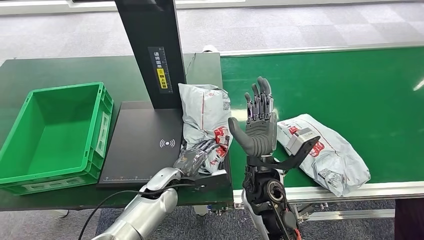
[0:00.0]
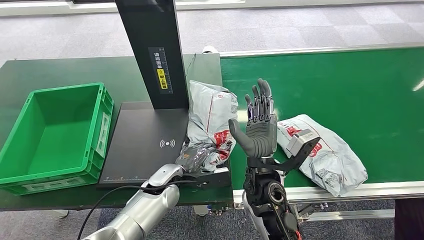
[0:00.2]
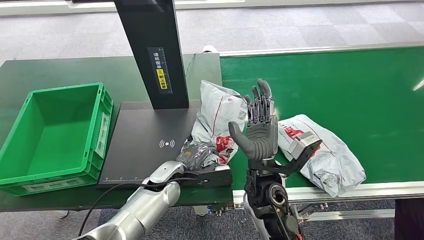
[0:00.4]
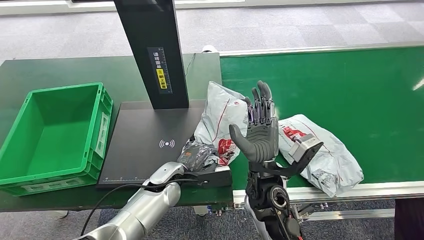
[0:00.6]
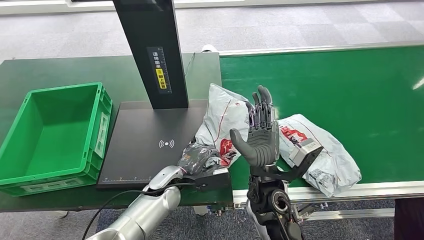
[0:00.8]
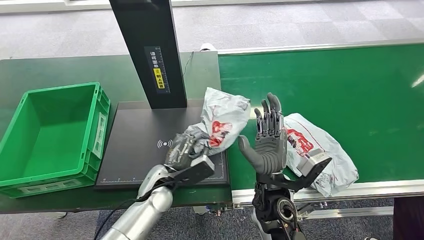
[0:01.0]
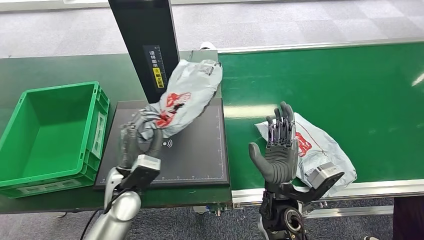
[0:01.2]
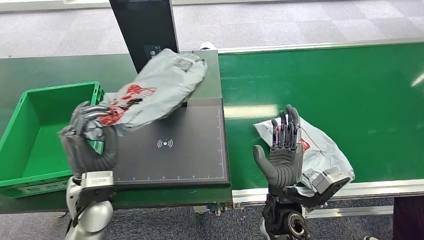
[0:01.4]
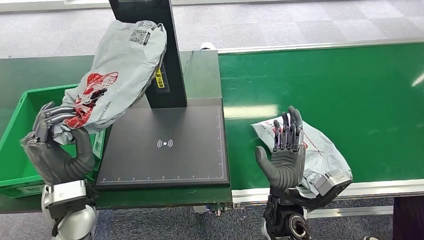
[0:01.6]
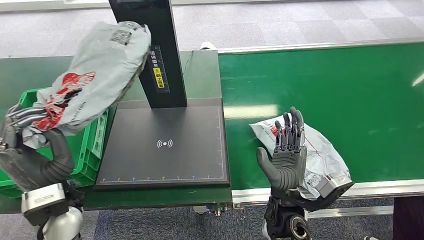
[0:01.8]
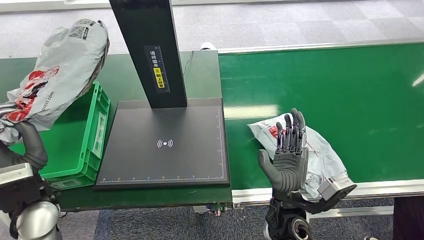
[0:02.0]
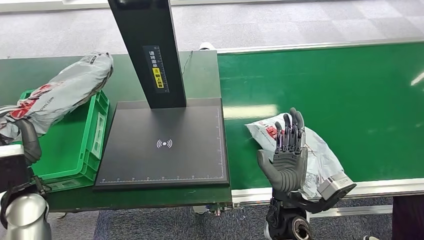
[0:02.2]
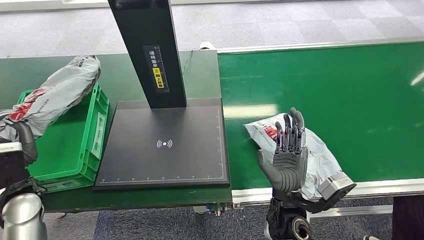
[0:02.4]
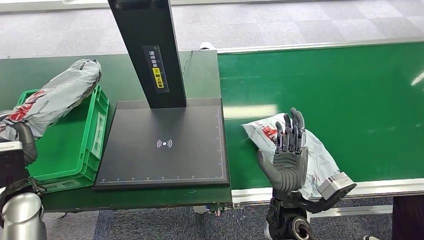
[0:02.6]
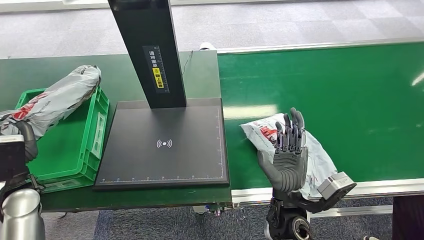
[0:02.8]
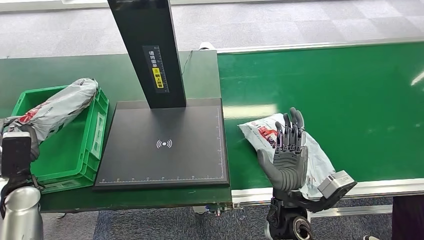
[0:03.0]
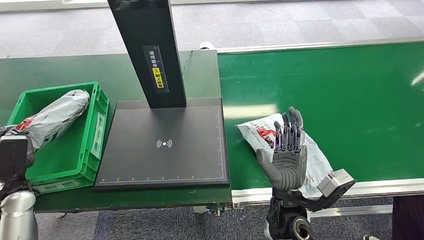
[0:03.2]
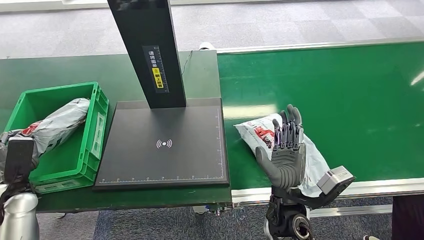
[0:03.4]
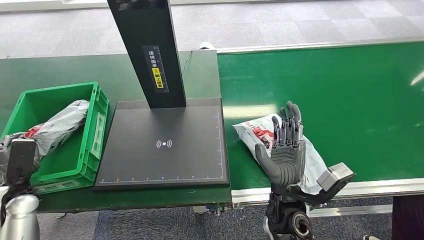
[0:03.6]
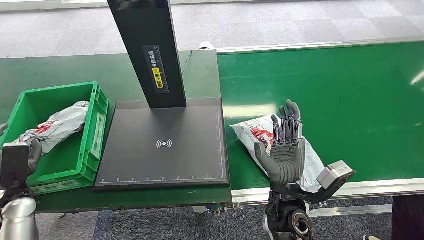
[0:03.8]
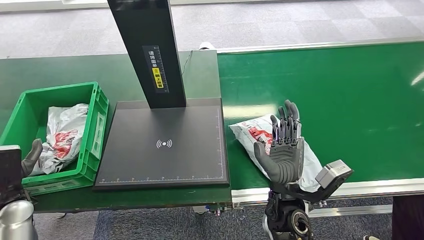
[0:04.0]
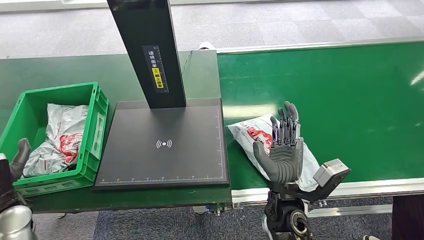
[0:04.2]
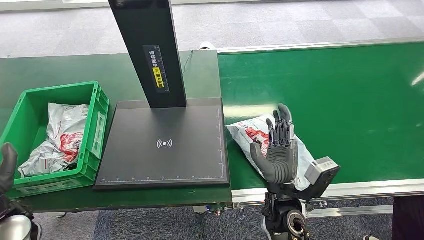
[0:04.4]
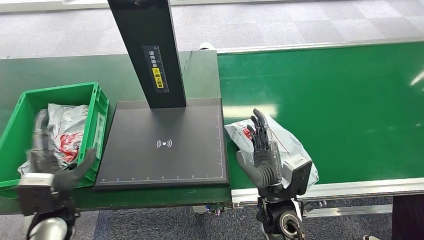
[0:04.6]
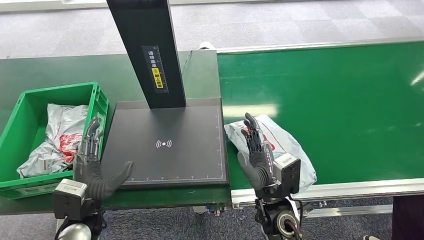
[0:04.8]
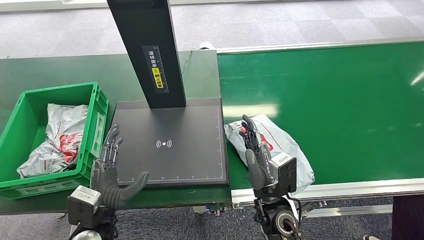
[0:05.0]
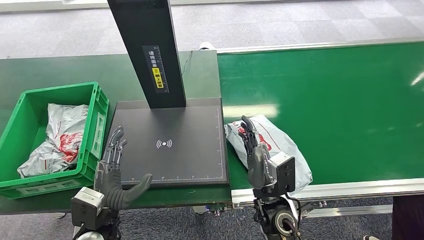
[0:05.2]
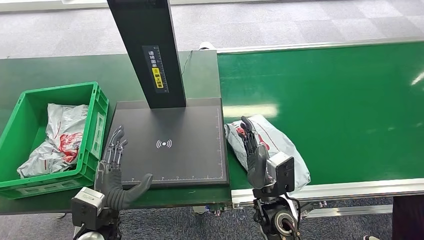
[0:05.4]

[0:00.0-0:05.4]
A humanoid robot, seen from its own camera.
Step, 0:00.0 to 0:01.6: Pick up the package from the inbound machine.
Step, 0:01.8 to 0:05.4: Place the package into the parcel locker.
0:02.8 to 0:04.0: The left hand ends up roughly 5 cm from where it was.
0:04.0 to 0:05.4: The left hand is displaced to the right by approximately 25 cm.
